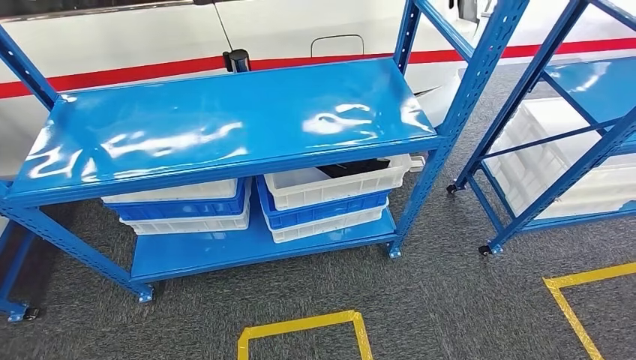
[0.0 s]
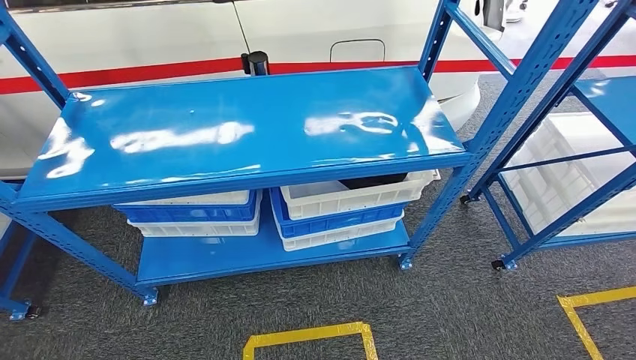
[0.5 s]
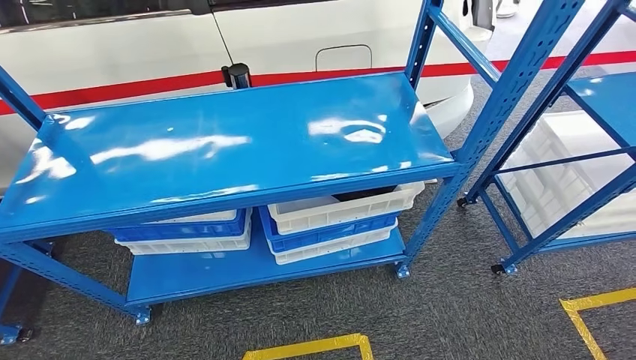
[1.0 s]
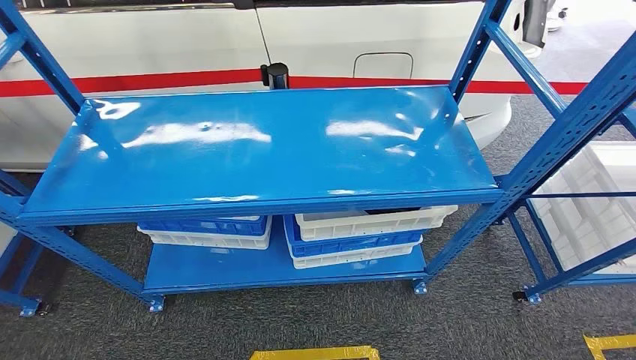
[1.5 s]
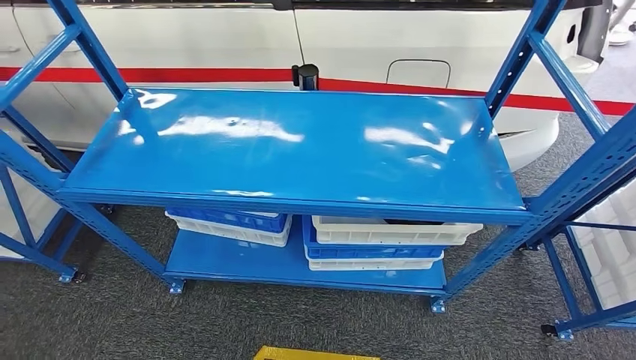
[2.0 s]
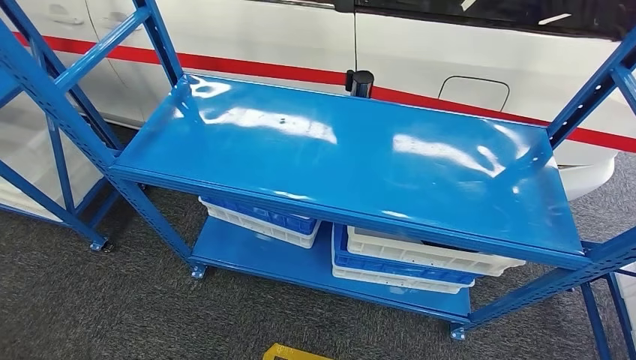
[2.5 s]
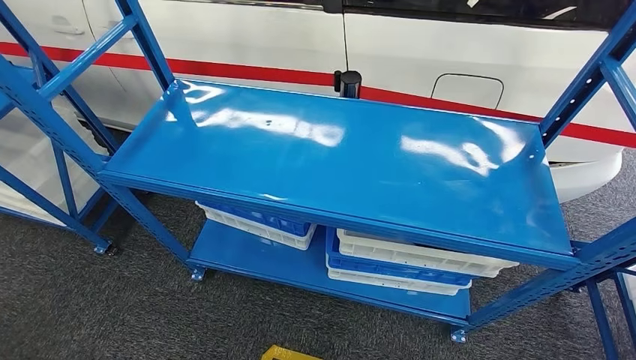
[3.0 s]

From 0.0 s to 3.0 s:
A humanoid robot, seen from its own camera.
Step, from 0.0 s to 3.0 s: Move to the initial position of the shelf.
